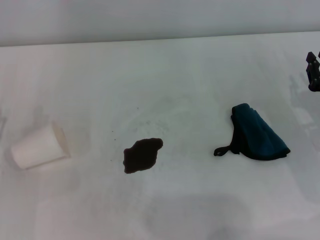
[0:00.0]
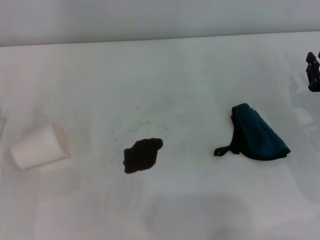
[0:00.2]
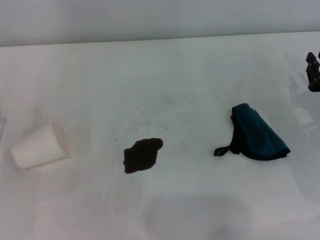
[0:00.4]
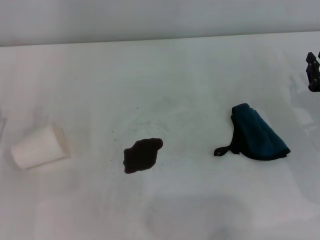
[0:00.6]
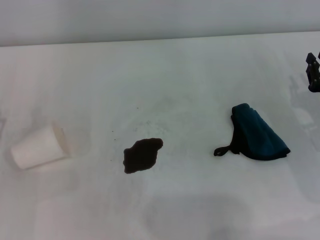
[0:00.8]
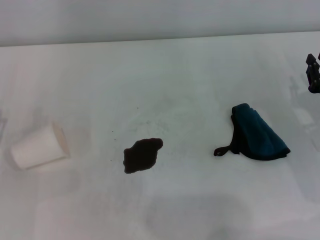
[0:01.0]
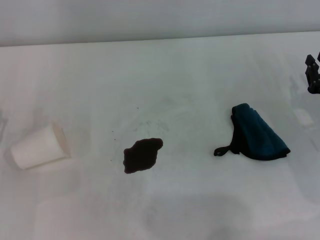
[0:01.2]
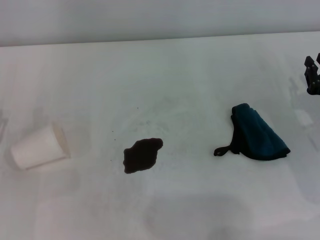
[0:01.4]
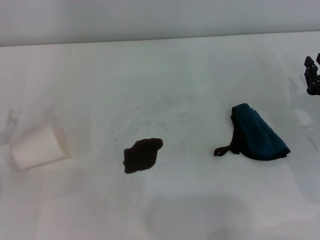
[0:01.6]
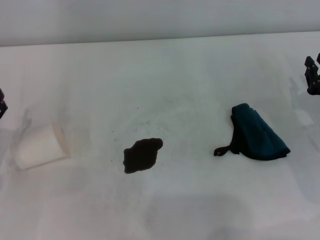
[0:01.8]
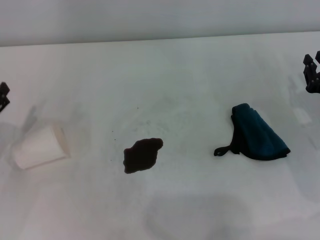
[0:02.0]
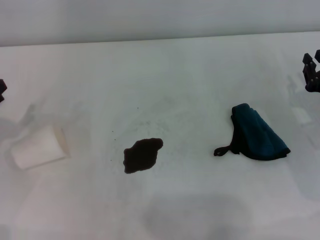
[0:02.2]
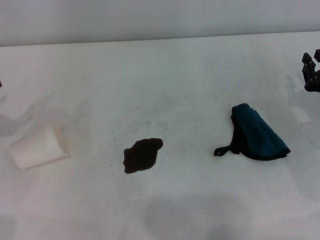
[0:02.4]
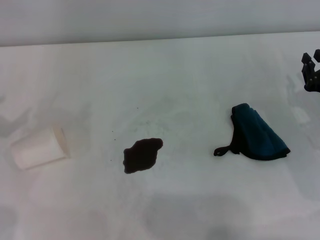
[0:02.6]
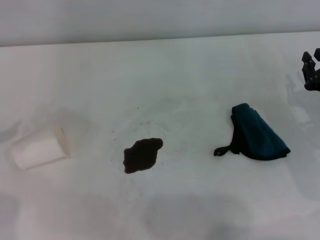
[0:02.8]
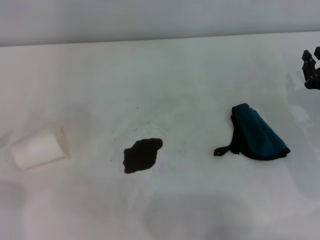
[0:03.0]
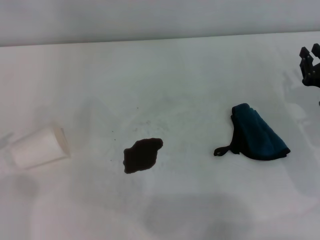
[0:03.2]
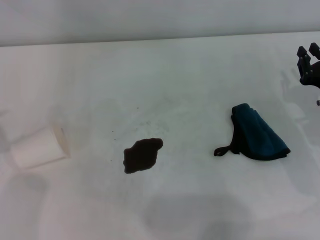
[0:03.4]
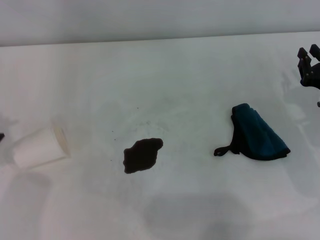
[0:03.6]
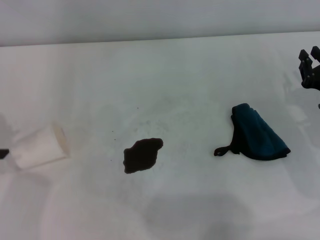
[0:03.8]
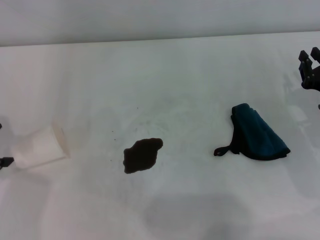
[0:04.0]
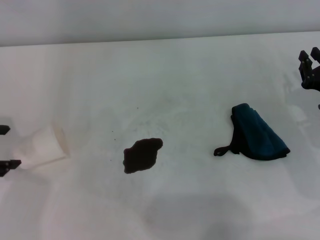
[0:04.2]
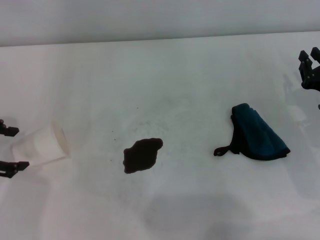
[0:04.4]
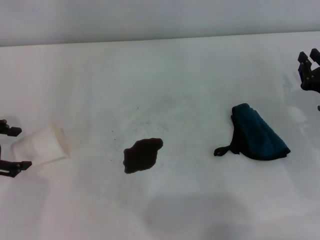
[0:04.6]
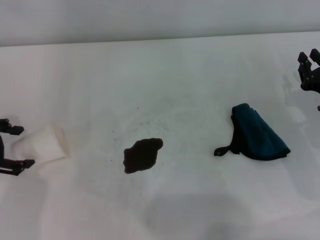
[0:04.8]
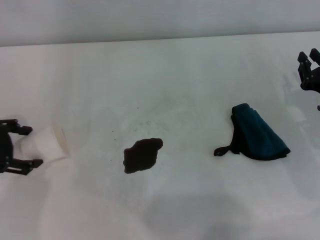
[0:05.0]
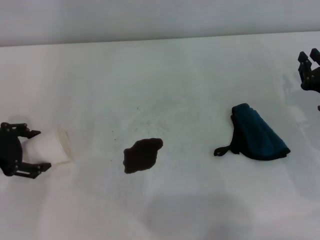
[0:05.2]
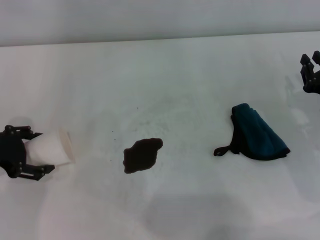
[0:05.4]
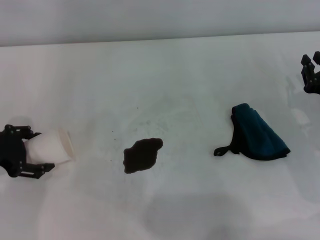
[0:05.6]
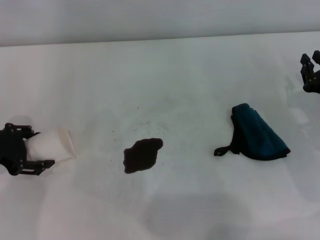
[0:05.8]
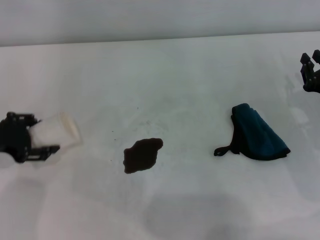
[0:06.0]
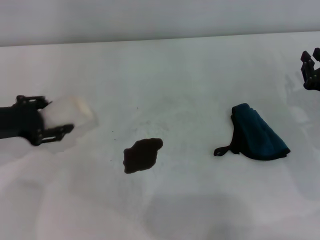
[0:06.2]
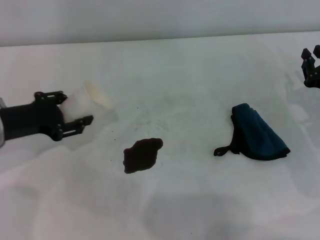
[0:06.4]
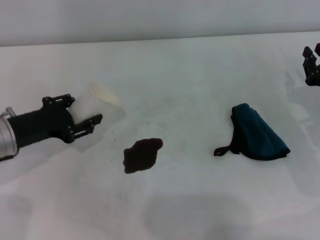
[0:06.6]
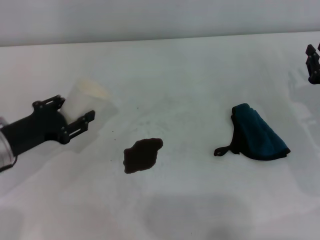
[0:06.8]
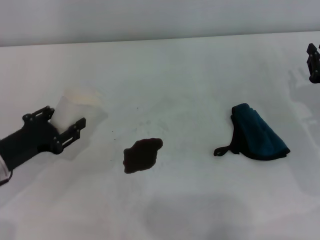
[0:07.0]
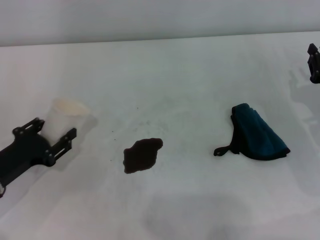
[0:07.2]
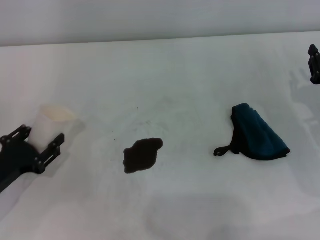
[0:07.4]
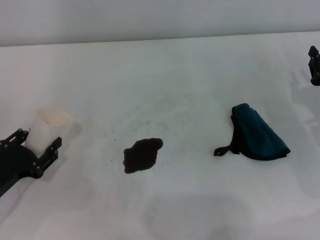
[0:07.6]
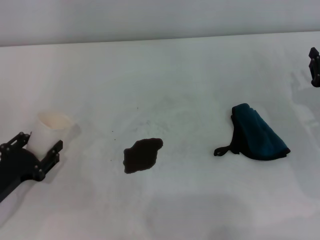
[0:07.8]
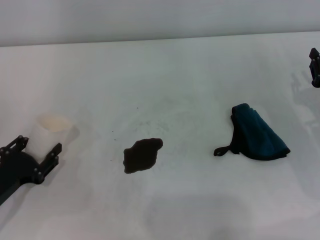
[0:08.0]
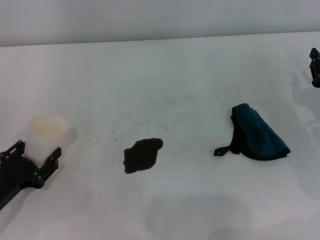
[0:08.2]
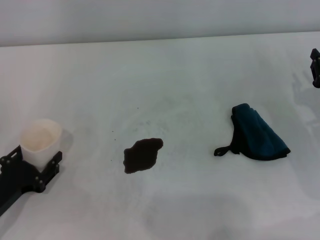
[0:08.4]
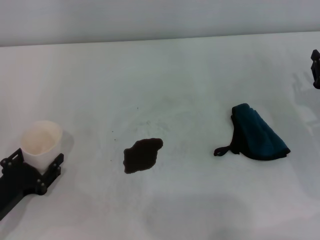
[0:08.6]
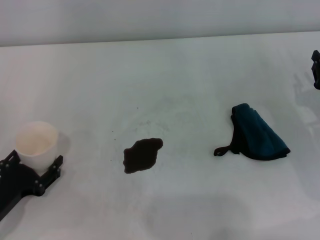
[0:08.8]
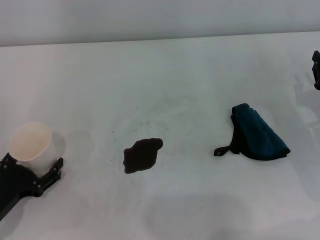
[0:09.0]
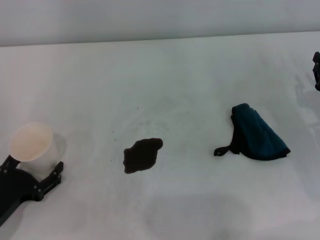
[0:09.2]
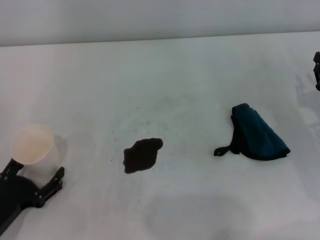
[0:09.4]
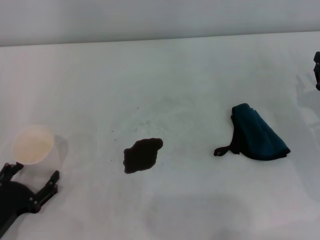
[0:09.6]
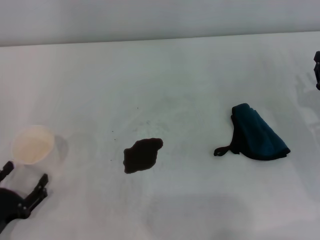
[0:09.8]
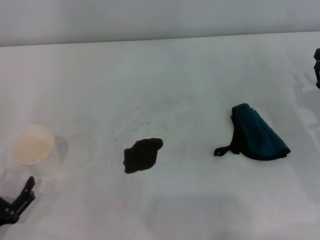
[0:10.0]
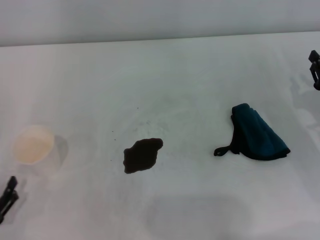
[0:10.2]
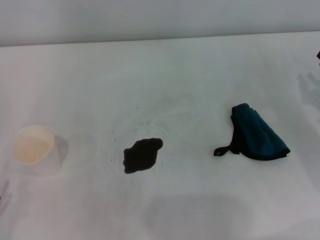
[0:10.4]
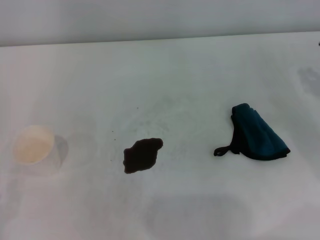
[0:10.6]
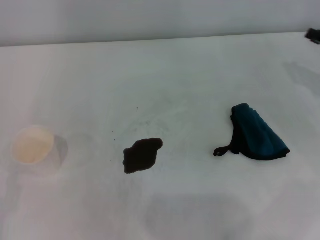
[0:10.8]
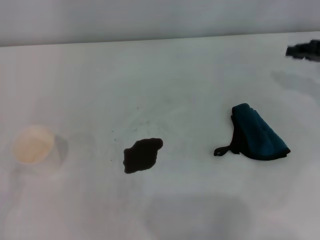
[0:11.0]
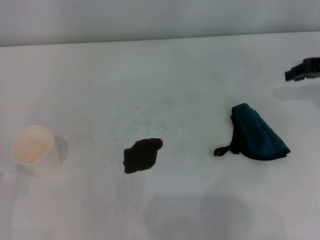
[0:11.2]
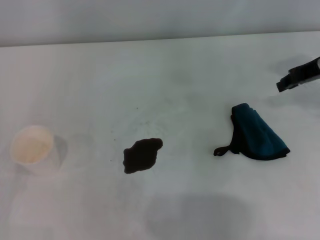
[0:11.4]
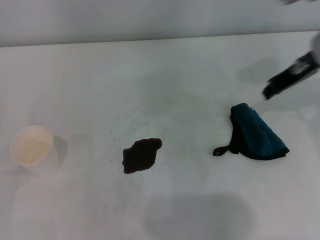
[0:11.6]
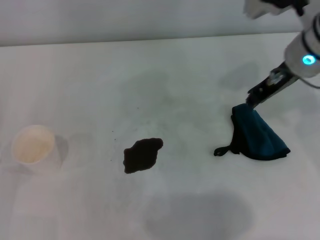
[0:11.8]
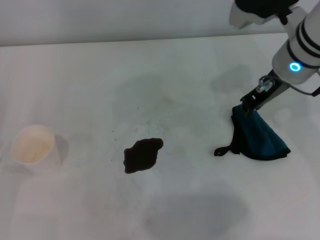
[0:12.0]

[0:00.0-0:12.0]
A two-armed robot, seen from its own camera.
Step, 0:00.0 to 0:05.6: Grasp the paper cup with the left gripper.
Step, 0:05.8 to 0:09.0: Stand the paper cup upright with the left gripper.
0:00.0 to 0:01.6: Neither gripper changes place.
0:03.0 to 0:04.4: The left gripper is displaced to the right and downward by some 10 cm.
0:04.4 to 0:06.0: The left gripper changes place by some 5 cm, and closes up.
0:06.0 to 0:07.6: The left gripper shifts roughly 15 cm backward and downward, and closes.
0:07.6 to 0:09.0: The left gripper opens.
0:09.0 to 0:10.4: The left gripper shifts roughly 10 cm backward, and opens its fingers.
0:10.4 to 0:12.0: The right gripper heads to the left, upward and forward, covering some 25 cm.

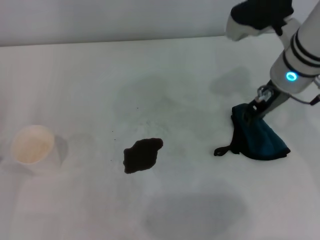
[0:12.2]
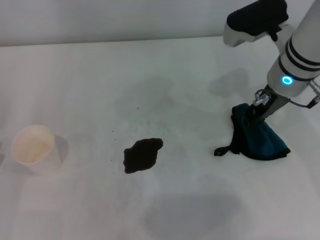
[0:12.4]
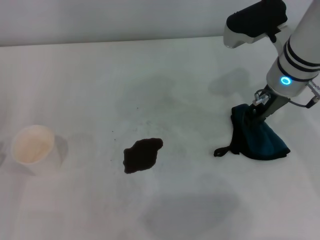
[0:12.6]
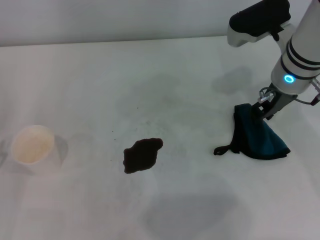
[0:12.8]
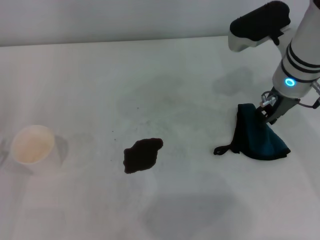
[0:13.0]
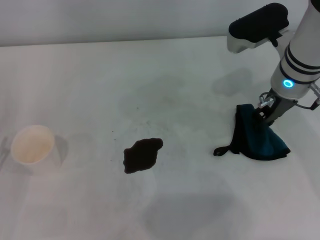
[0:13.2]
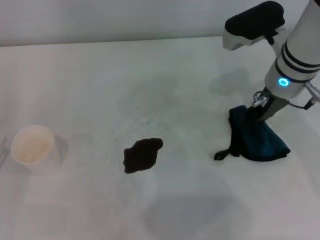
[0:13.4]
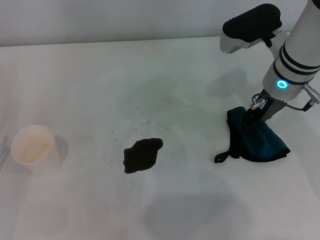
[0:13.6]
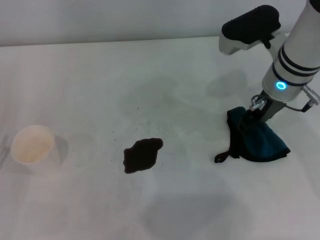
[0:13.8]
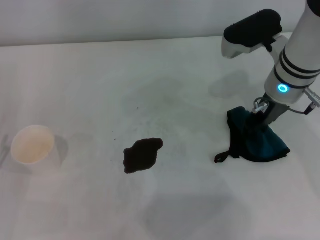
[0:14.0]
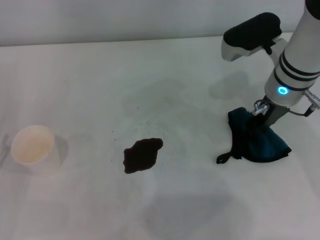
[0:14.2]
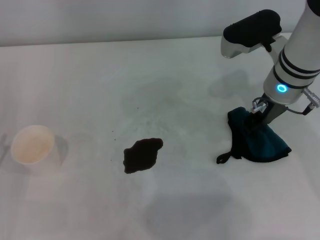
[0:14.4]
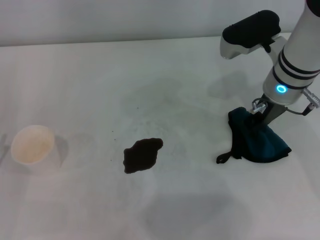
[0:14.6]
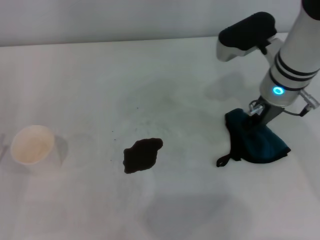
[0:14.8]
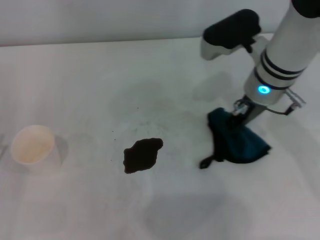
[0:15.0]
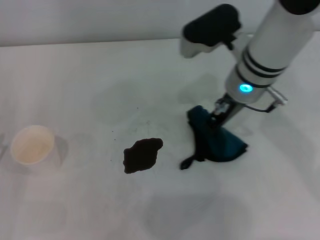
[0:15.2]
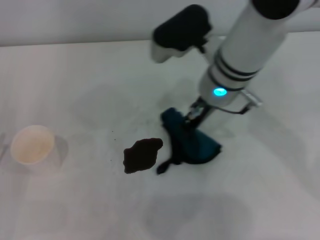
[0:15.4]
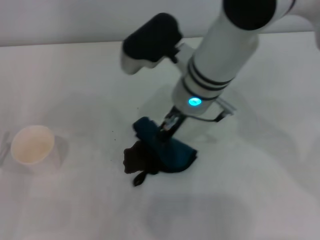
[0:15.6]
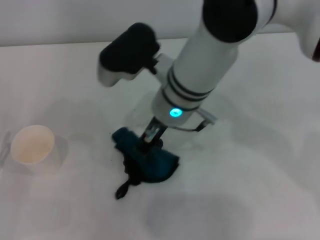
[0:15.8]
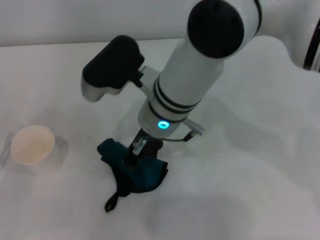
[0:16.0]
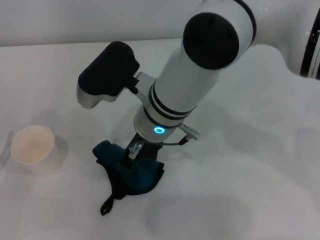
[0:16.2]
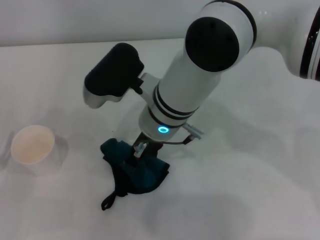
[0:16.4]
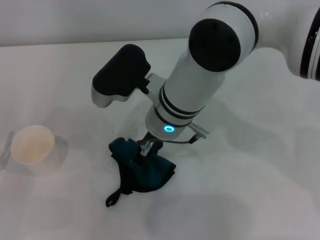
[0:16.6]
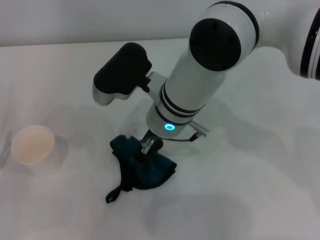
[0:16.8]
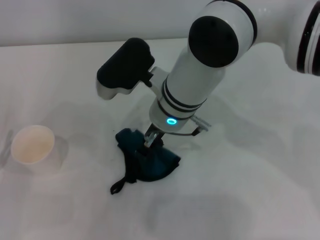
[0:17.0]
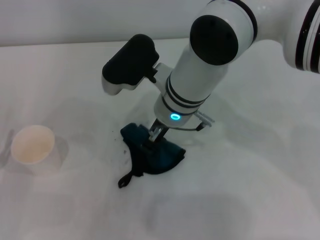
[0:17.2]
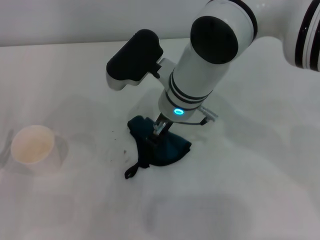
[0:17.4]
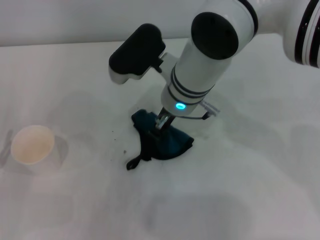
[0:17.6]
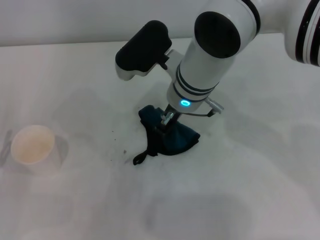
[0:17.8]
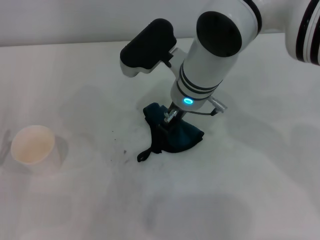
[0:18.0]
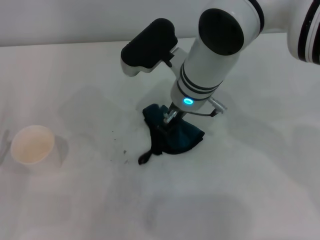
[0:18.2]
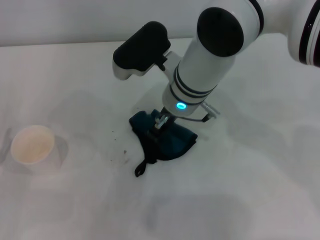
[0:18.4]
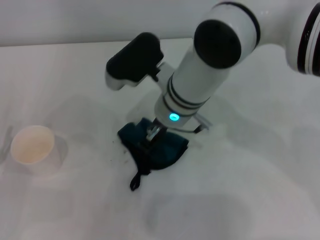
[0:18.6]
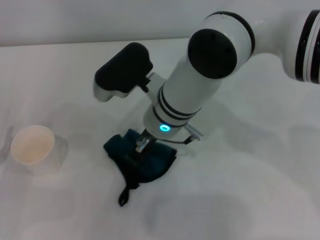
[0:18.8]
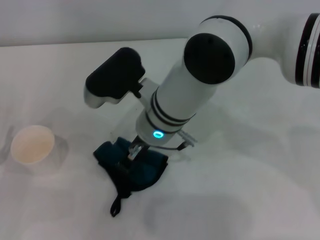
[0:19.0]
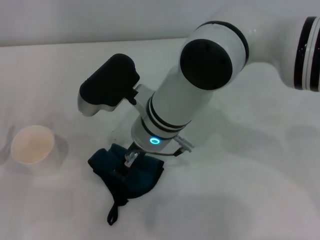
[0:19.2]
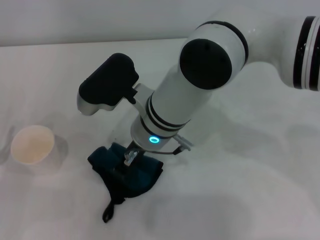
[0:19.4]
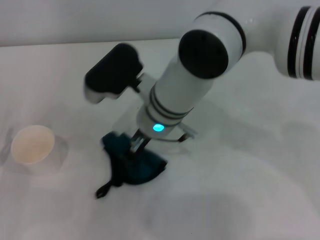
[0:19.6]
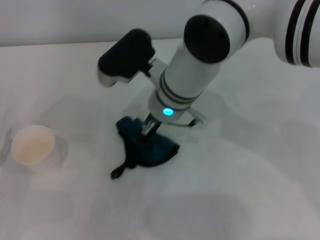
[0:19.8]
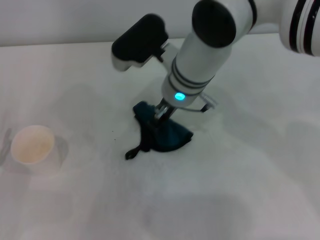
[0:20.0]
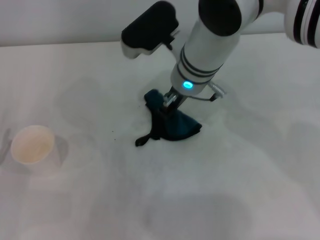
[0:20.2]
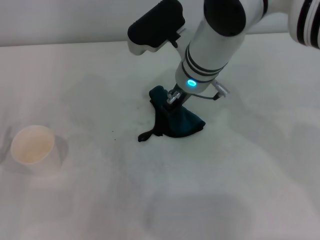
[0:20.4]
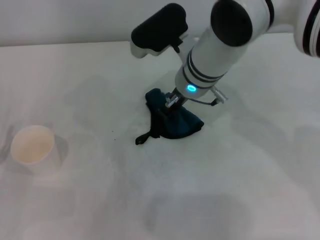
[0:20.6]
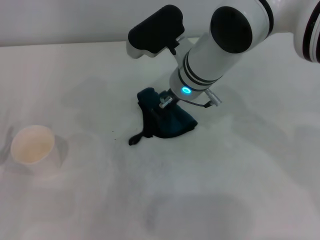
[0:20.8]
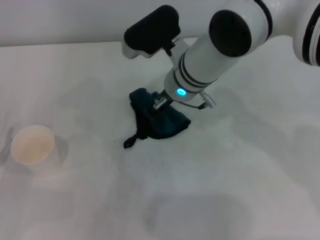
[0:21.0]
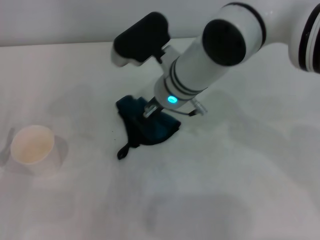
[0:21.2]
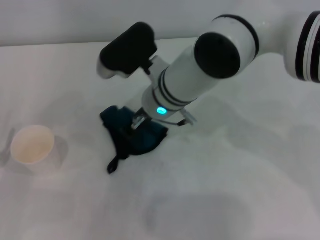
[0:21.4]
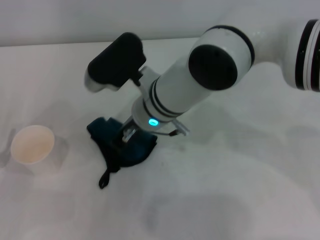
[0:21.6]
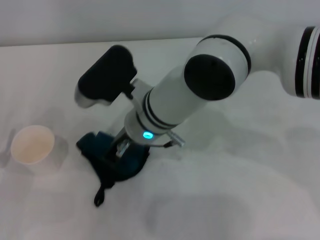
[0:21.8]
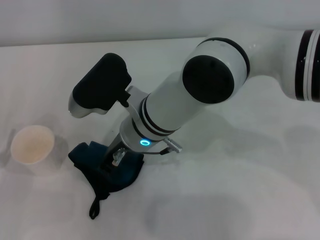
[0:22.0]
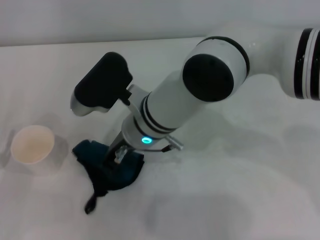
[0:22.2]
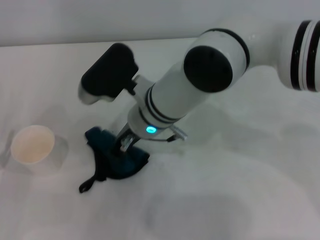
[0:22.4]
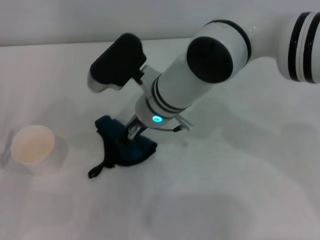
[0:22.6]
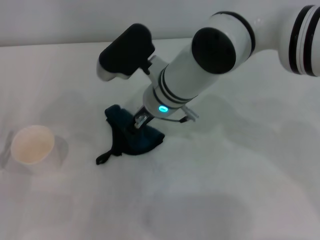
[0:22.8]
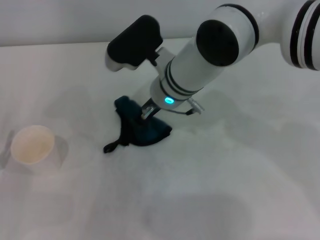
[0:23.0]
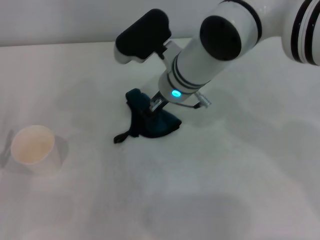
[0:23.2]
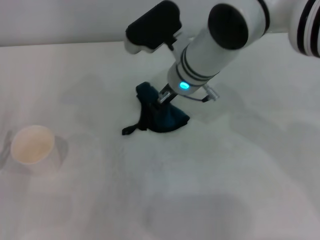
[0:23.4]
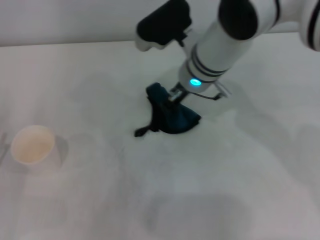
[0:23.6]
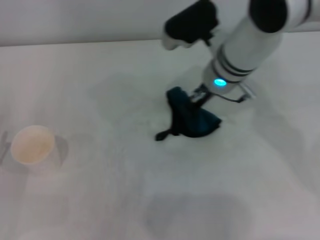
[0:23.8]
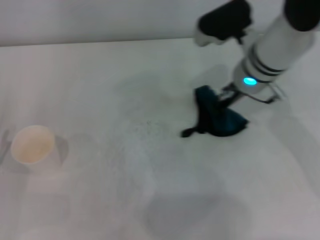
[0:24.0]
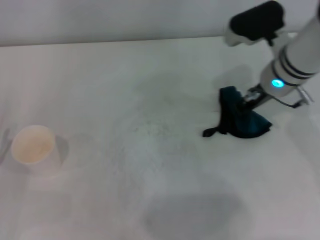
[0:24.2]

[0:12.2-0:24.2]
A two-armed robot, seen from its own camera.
0:12.2 to 0:13.8: The grippers make only small movements.
0:13.8 to 0:15.2: The right gripper travels to the left by about 5 cm, and closes its fingers.
0:15.2 to 0:16.6: The right gripper goes approximately 10 cm to the left.
0:16.6 to 0:18.2: The right gripper shifts by roughly 5 cm.
0:19.8 to 0:21.2: The grippers move only a little.
0:22.6 to 0:24.2: The right gripper goes some 20 cm to the right.
